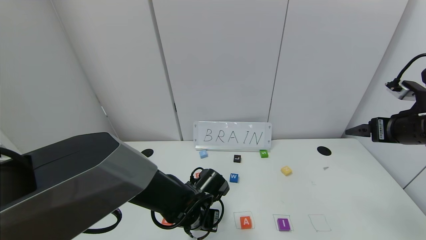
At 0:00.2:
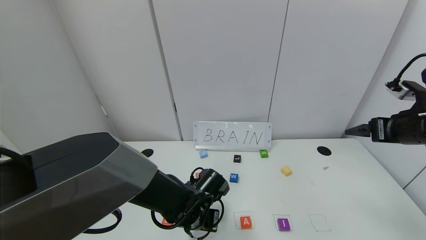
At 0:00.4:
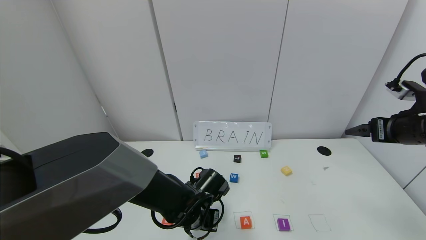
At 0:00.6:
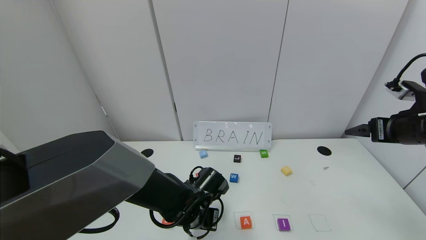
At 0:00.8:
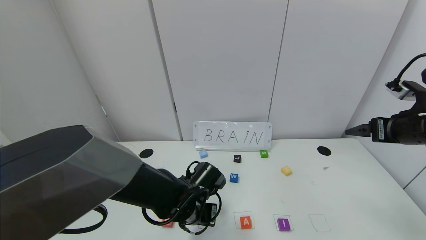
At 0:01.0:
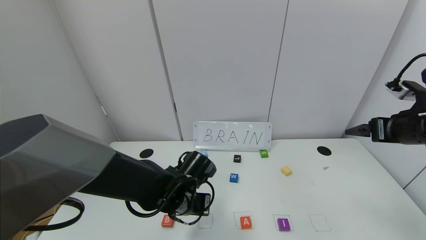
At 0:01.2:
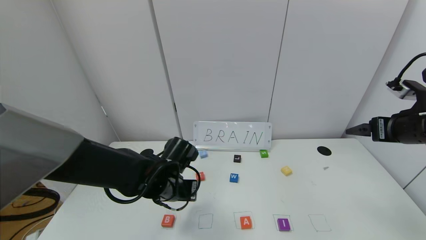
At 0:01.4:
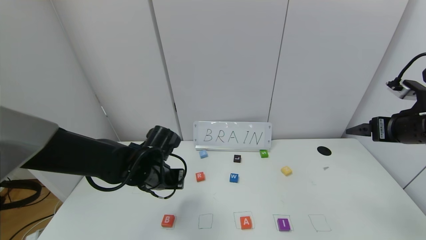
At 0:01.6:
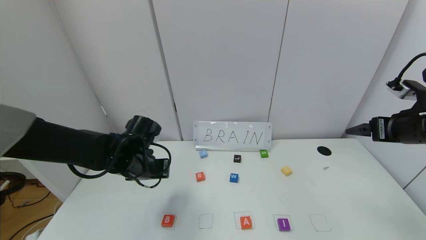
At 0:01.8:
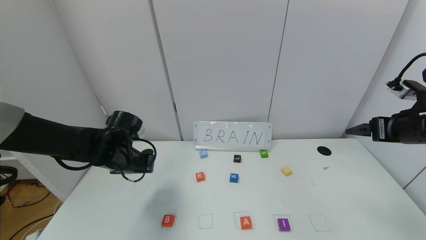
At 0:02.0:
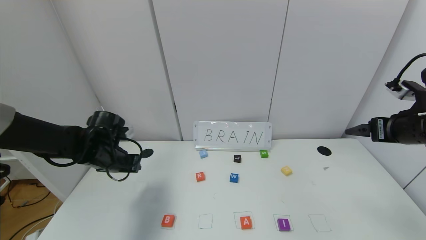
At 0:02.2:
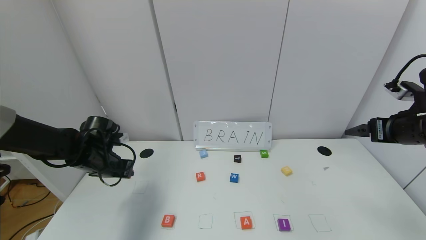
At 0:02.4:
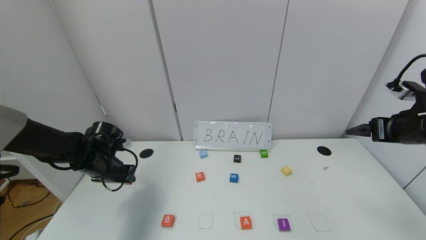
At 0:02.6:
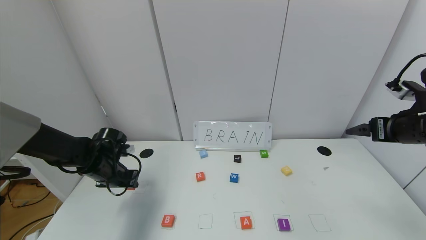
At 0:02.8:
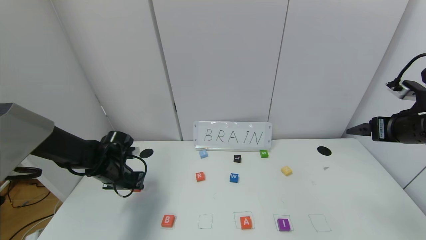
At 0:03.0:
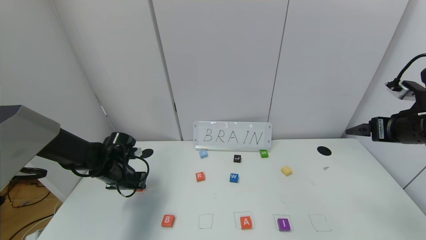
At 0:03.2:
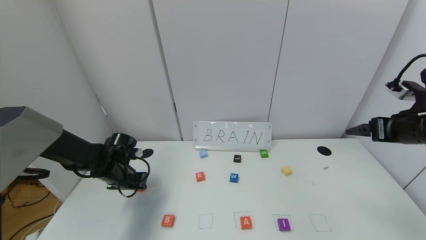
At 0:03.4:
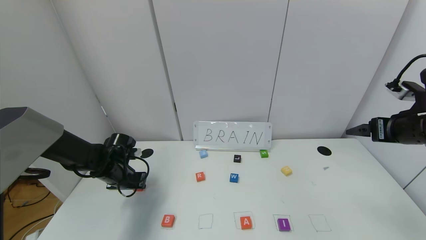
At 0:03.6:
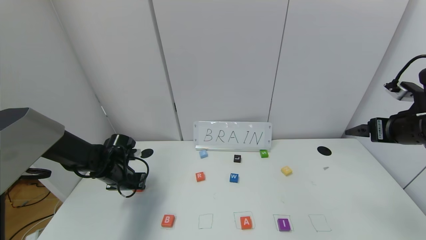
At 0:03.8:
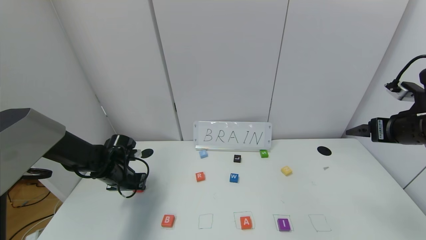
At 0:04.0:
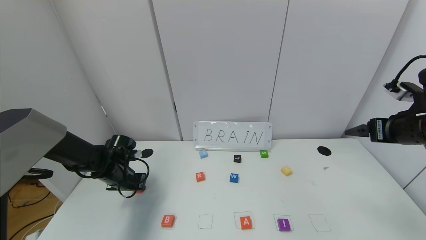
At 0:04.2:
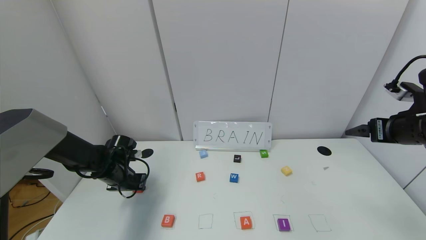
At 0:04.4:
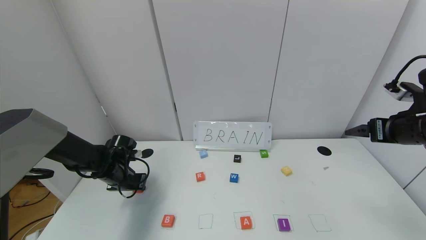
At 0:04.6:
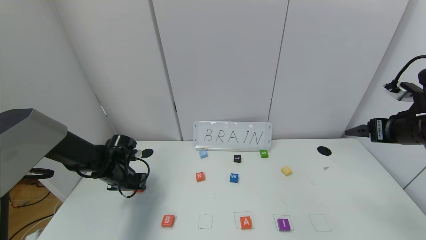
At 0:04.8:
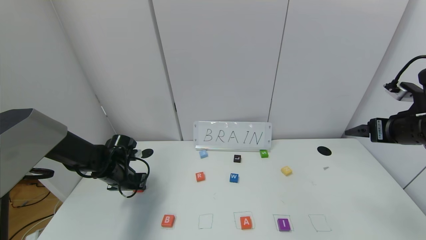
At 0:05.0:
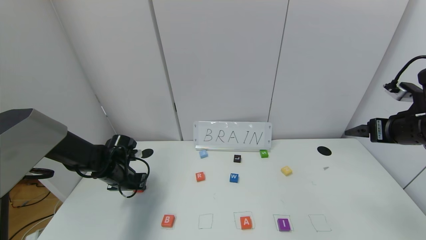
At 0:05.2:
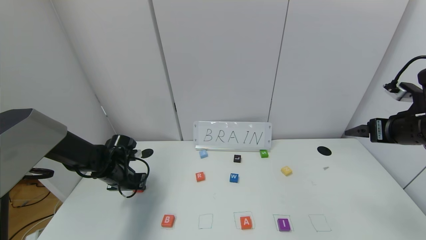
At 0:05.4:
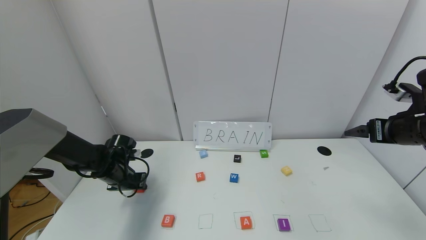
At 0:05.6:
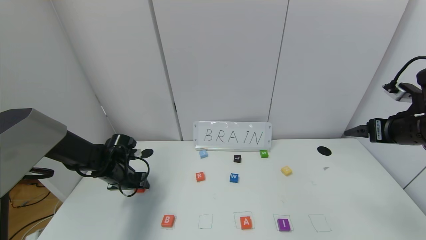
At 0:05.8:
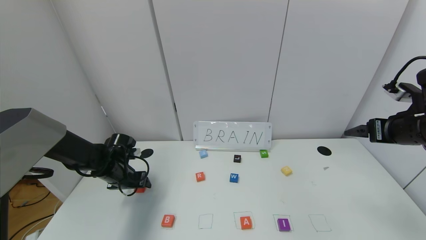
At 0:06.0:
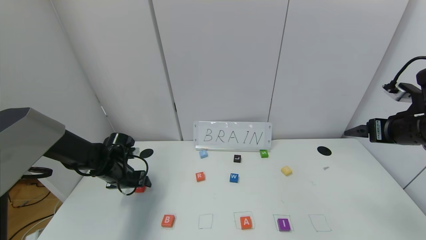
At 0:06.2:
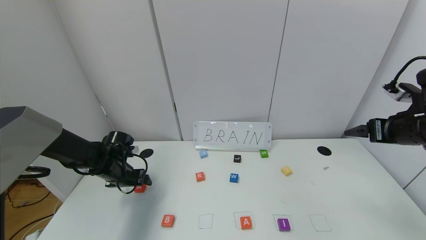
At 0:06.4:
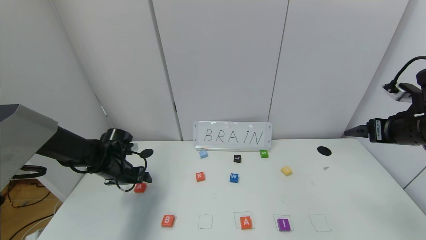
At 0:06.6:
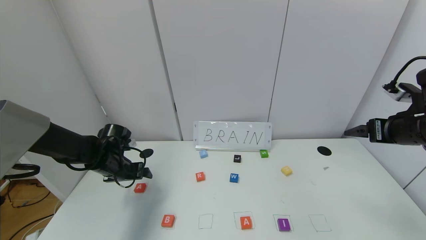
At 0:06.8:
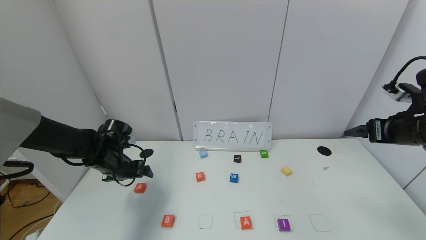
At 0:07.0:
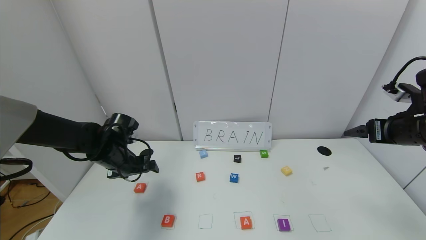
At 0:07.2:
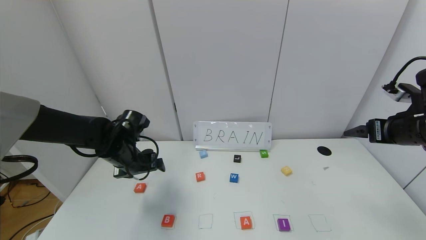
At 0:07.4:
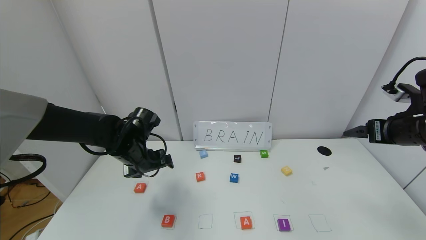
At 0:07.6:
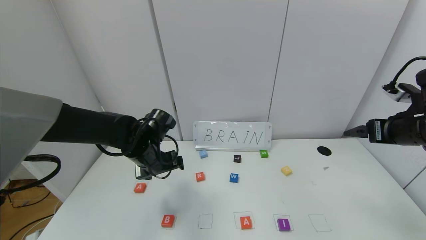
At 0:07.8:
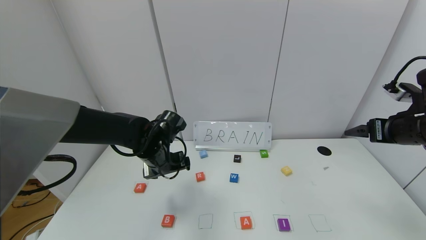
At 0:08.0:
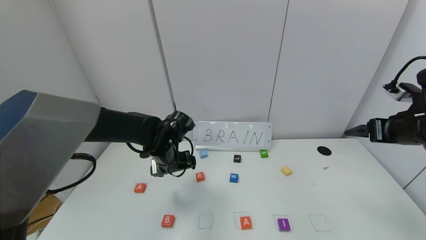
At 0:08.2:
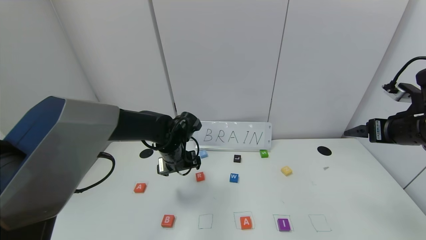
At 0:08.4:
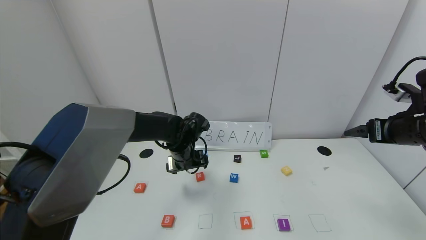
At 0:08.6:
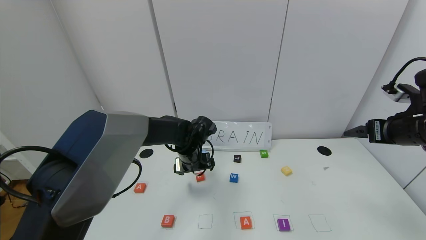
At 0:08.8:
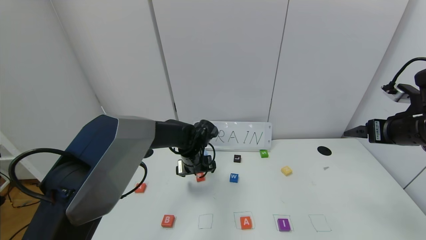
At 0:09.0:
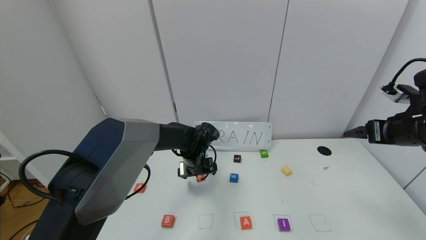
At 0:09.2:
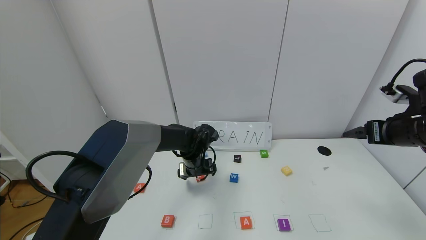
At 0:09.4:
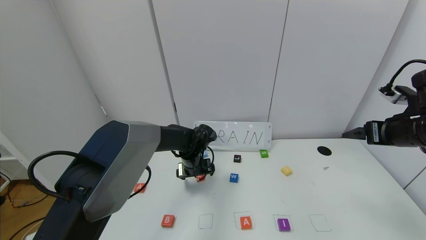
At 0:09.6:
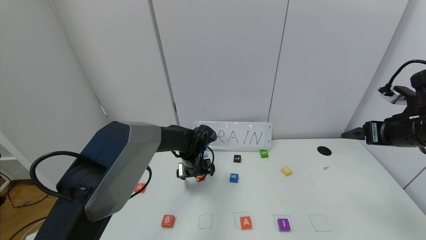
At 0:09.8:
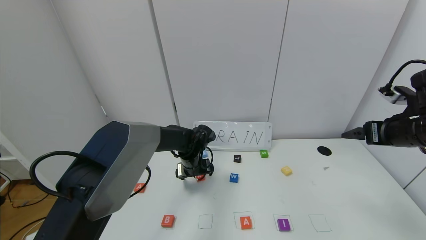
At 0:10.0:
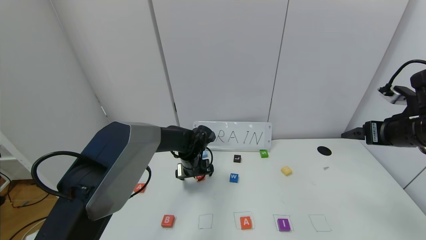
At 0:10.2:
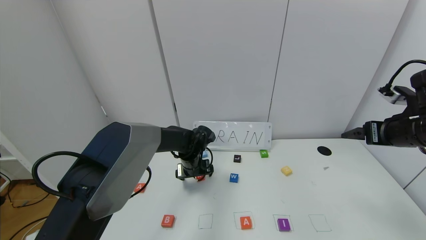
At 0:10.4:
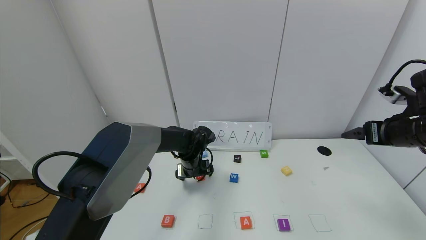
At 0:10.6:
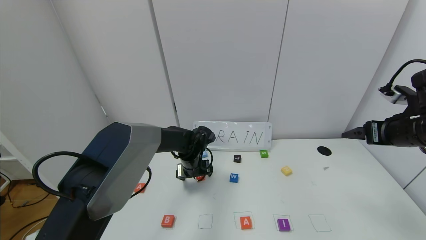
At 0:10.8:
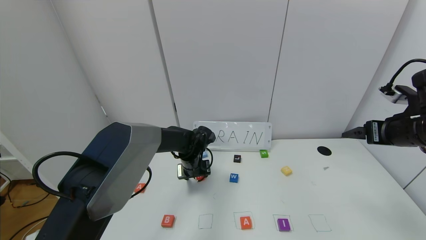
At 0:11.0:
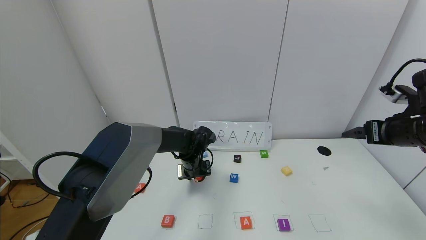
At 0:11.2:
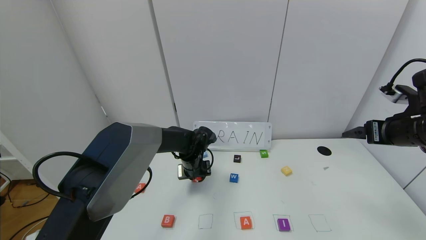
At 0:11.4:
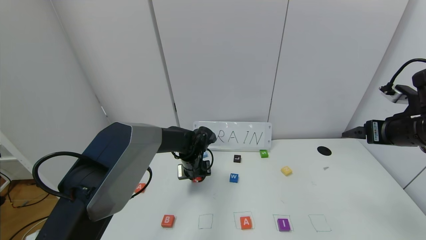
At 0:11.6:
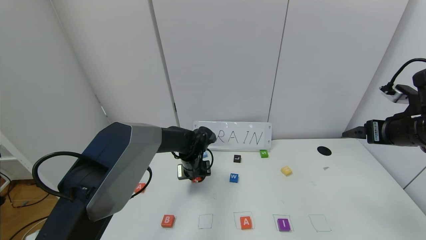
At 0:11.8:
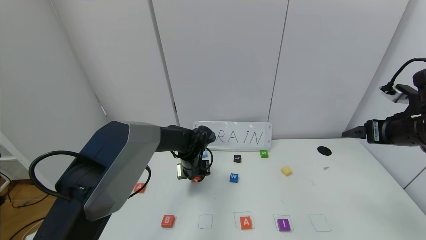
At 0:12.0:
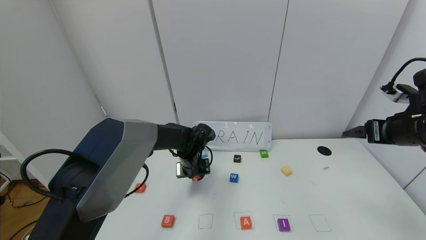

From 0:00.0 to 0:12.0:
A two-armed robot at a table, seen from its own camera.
Task of the whole recording: use the gripper to find blocks with the letters b, a, a, and i on the table and arrange them into BAAI, then find r and N and turn the arranged baai into brian.
Step, from 0:00.0 to 0:05.6: Move the block A out of the second location.
From 0:00.0 to 0:01.6: The left gripper is displaced to the left, upward and forward by about 20 cm.
From 0:01.6 to 0:03.0: The left gripper goes roughly 10 cm to the left and downward.
From 0:03.0 to 0:04.4: There are only small adjustments of the grippers.
From 0:04.4 to 0:06.0: The left gripper opens.
From 0:06.0 to 0:07.6: The left gripper is displaced to the right and upward by approximately 15 cm.
From 0:07.6 to 0:09.0: The left gripper heads to the right, downward and forward, covering roughly 15 cm.
From 0:09.0 to 0:10.4: The grippers move only a little.
From 0:10.4 to 0:12.0: The left gripper closes its fingers.

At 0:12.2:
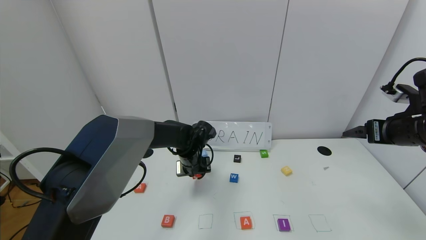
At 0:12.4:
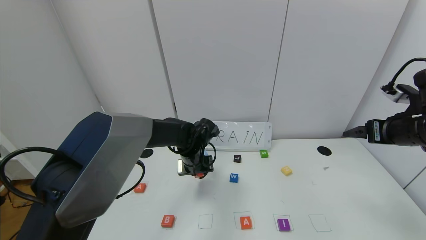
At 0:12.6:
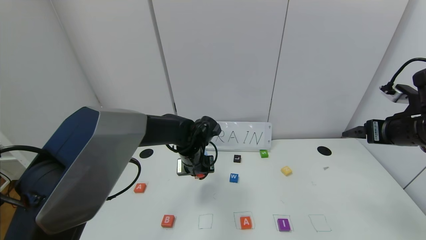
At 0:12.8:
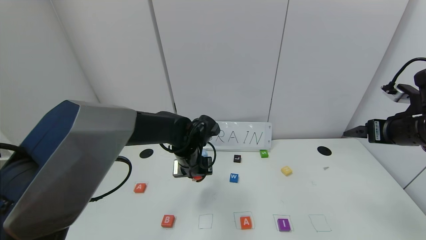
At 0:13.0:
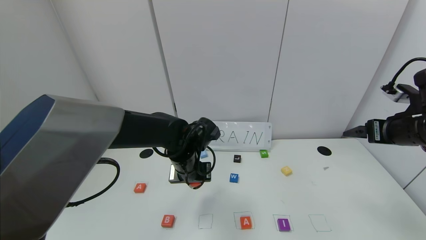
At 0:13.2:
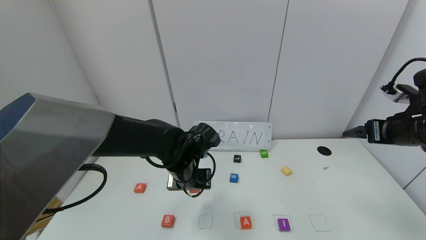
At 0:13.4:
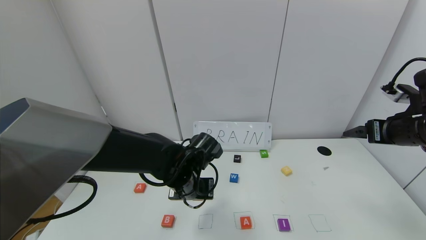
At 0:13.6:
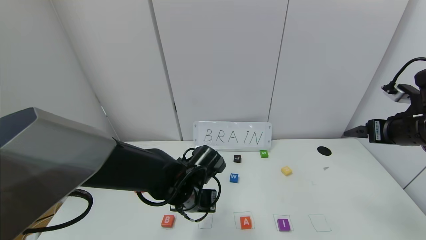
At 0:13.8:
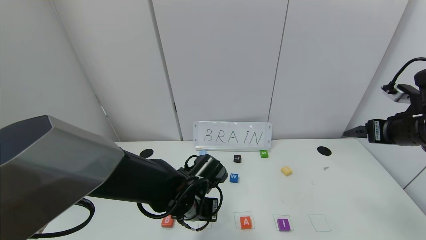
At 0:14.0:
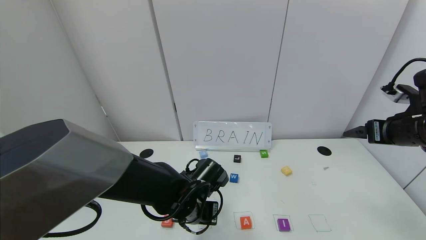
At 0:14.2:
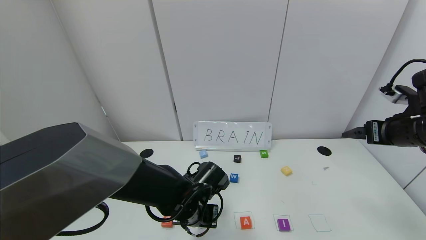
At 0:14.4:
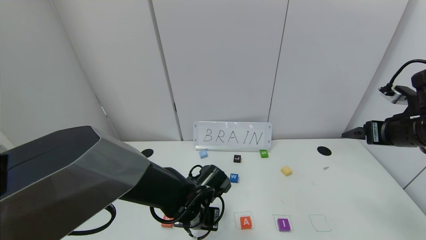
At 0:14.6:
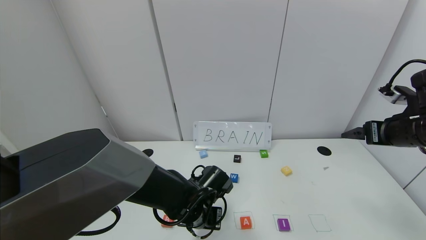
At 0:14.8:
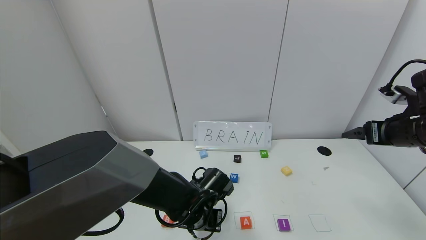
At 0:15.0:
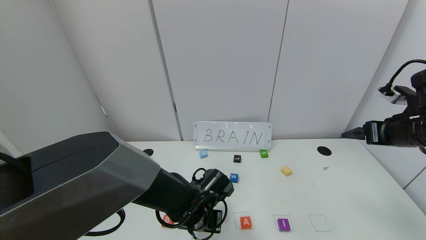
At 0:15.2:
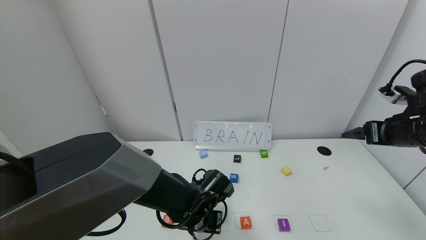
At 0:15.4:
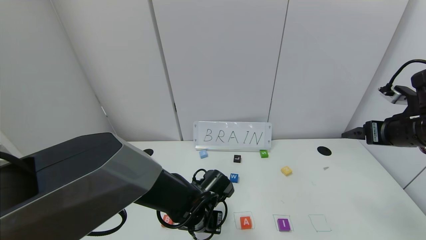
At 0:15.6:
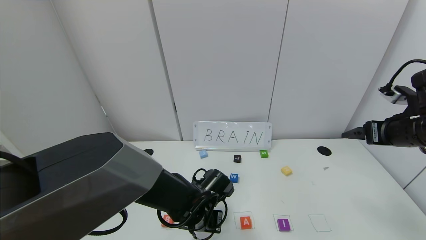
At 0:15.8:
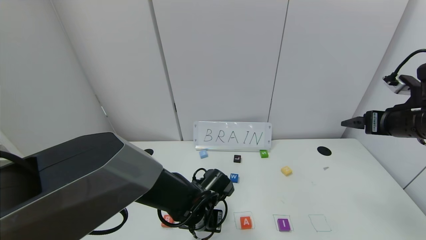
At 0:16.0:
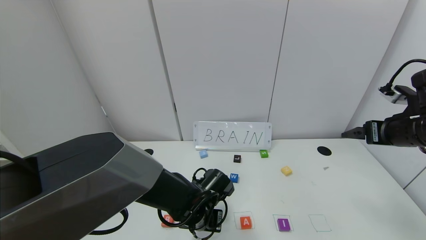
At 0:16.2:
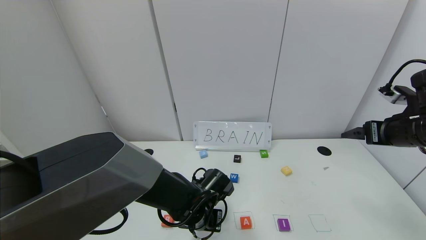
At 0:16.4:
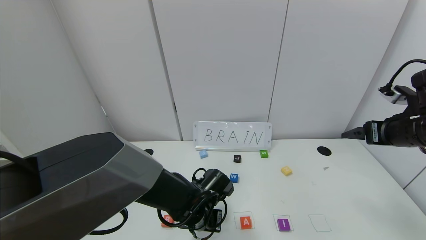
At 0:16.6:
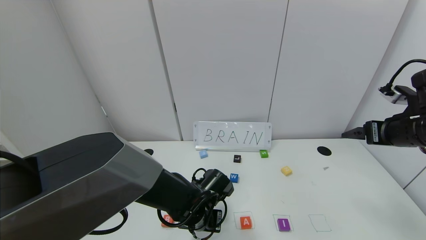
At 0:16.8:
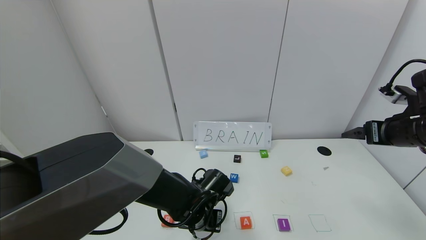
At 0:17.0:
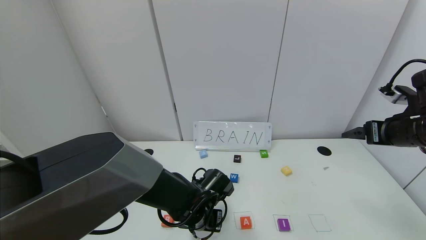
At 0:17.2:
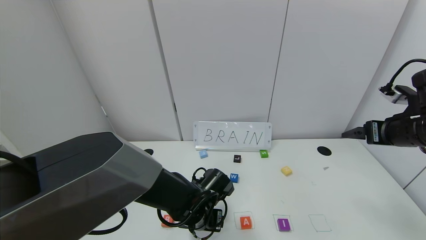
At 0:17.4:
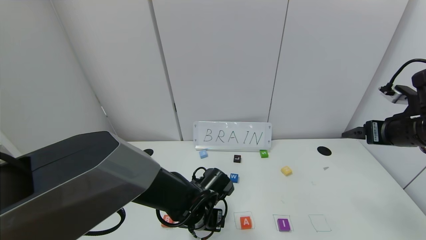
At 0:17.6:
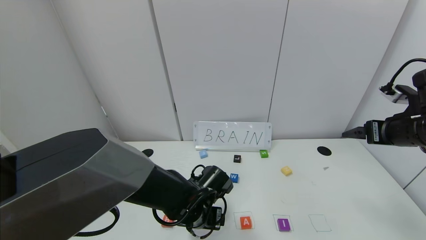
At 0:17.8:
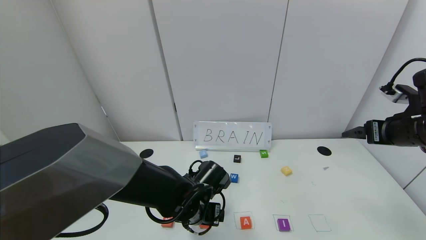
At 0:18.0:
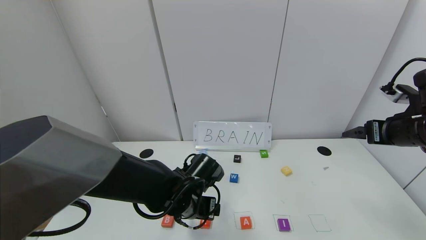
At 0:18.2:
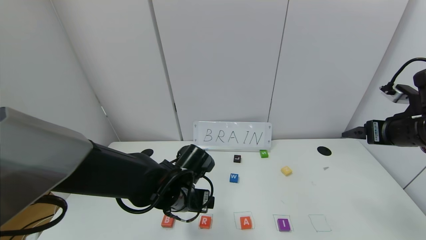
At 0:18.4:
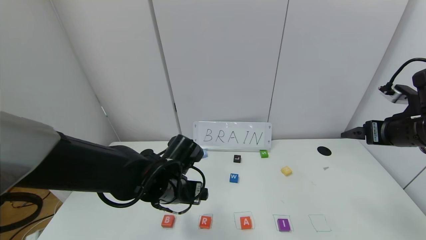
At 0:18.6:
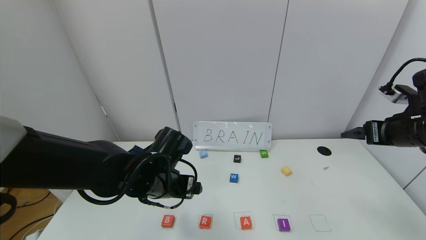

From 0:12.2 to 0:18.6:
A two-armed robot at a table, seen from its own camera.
Task of the whole recording: use the gripper to find blocks with the letters b, a, a, and i on the table and arrange them into BAAI, then find r and N and turn the arranged baai into brian.
Step, from 0:12.2 to 0:17.0: Place the block R in the second location.
From 0:12.2 to 0:13.8: The left gripper goes roughly 15 cm backward.
From 0:13.8 to 0:15.4: The grippers make only small movements.
From 0:15.4 to 0:17.0: The left gripper opens.
From 0:17.0 to 0:18.6: The left gripper travels upward and to the left by about 15 cm.
